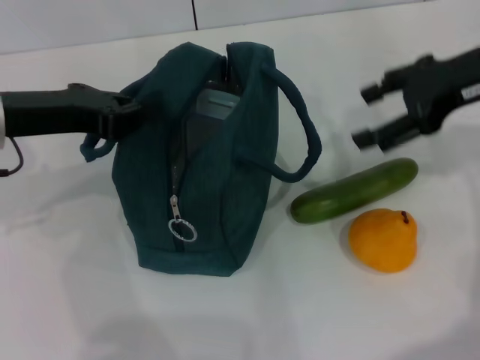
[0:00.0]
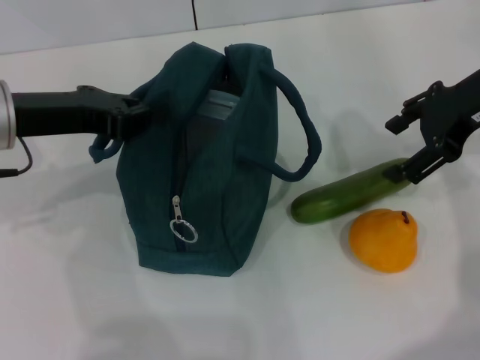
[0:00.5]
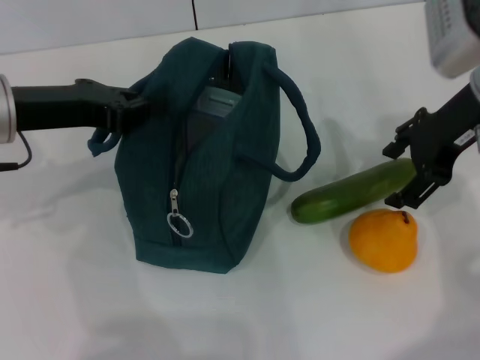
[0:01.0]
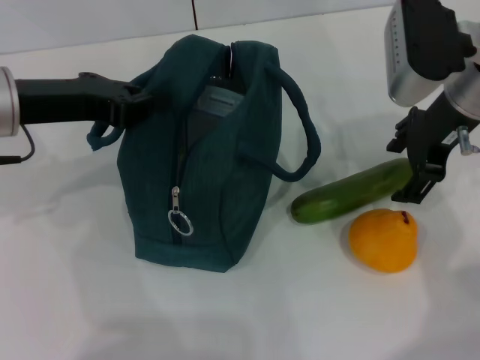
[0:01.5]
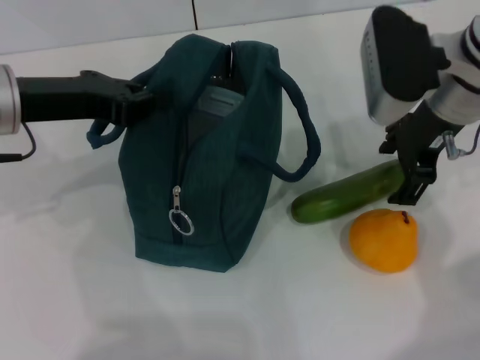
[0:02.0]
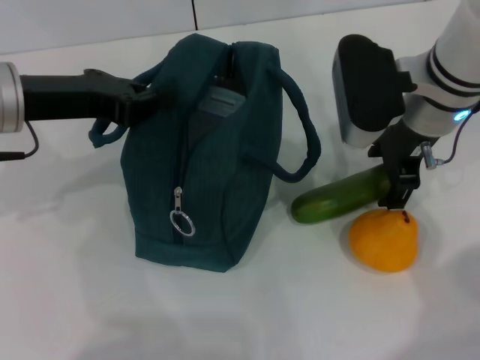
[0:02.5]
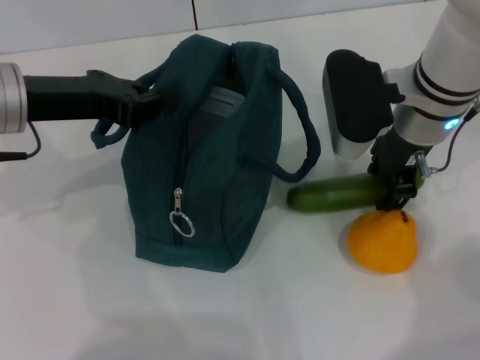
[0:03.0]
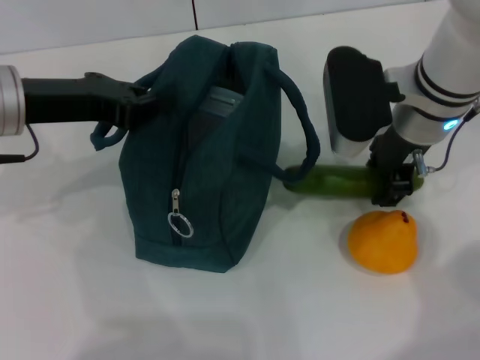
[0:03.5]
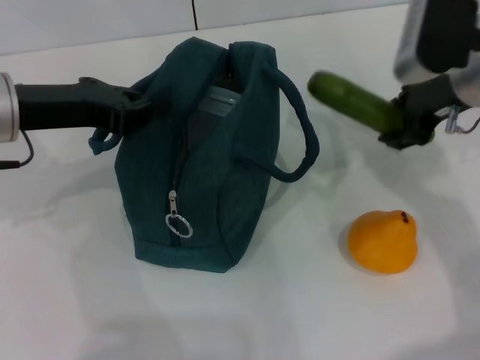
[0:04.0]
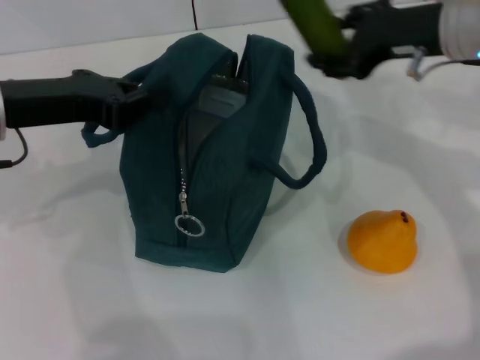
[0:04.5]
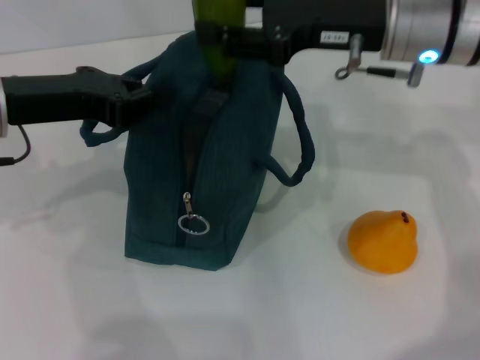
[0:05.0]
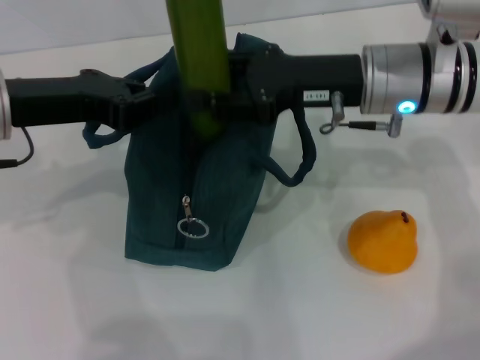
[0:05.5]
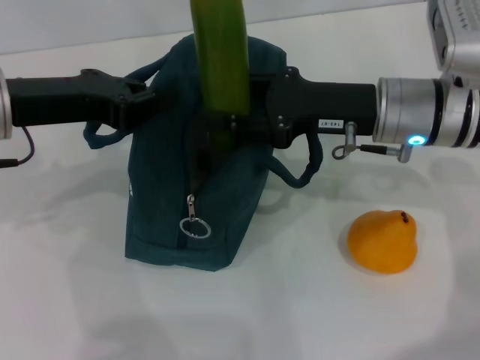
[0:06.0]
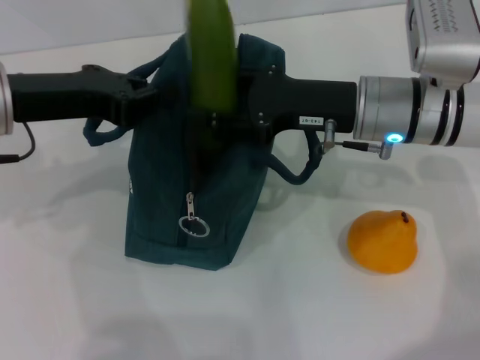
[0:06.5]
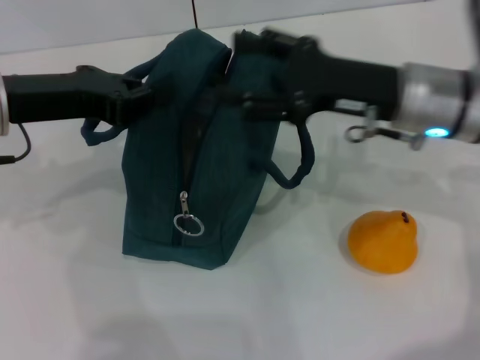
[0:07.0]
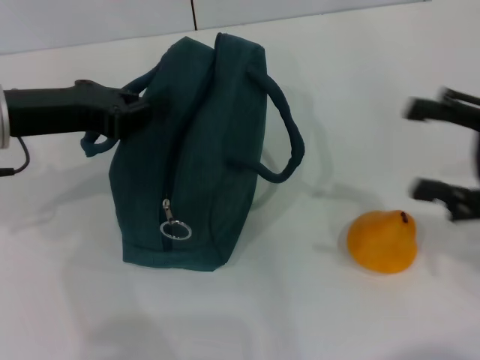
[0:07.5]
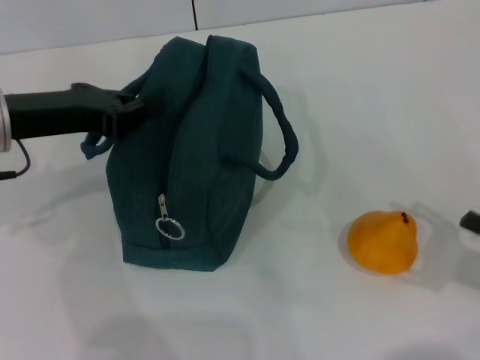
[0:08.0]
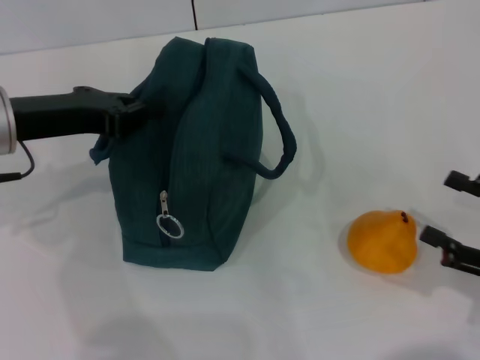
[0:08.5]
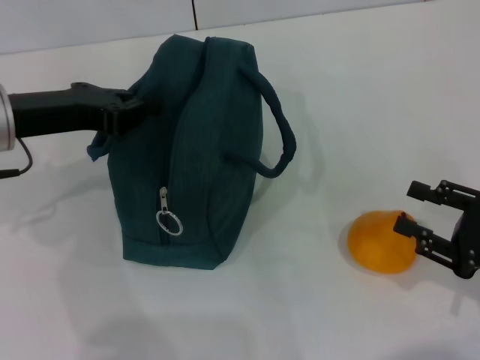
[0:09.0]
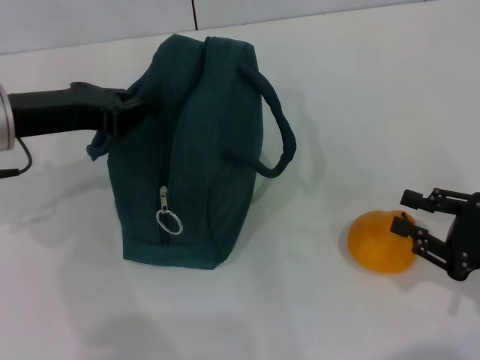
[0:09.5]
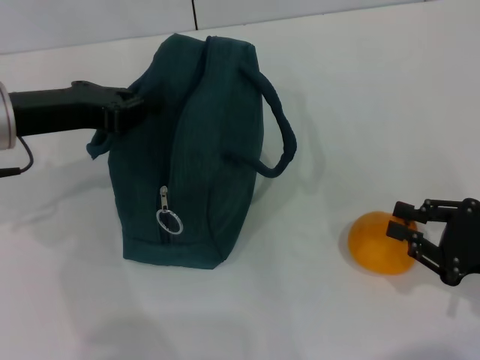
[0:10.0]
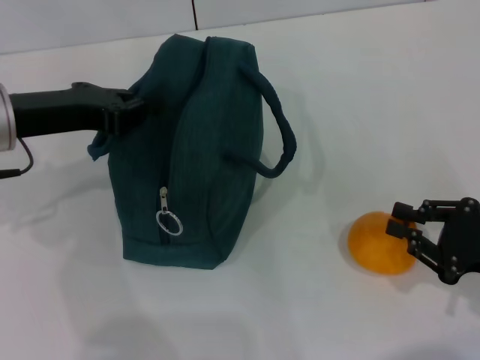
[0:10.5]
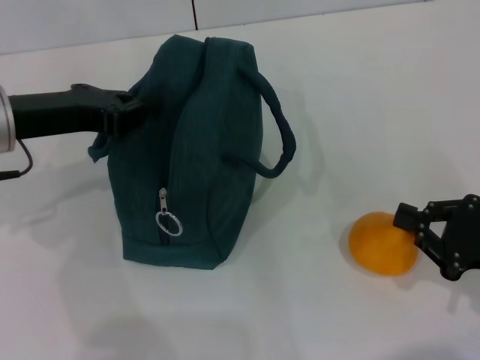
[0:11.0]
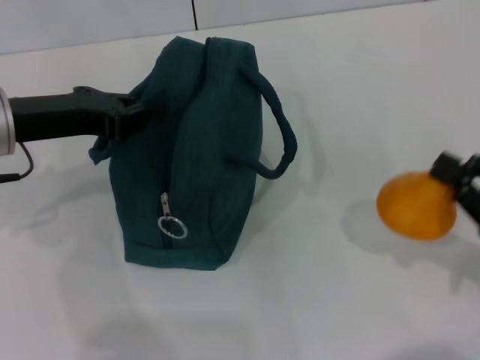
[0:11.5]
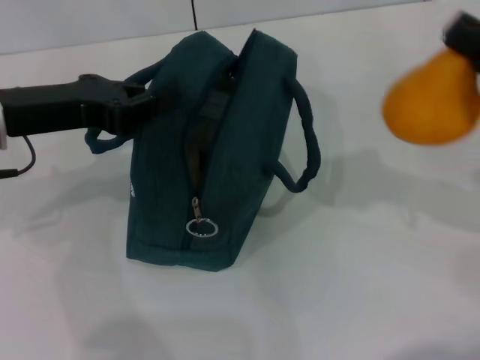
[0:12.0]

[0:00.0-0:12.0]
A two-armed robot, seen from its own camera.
Step, 0:00.0 to 0:03.0: Pick up the cucumber with your right hand.
Step, 0:03.5 to 0:06.5: Put the cucumber into the lunch bag with your right hand.
Step, 0:07.0 to 0:10.5: Grab the pear with your right hand.
0:00.0 to 0:02.0: The right gripper goes approximately 10 cm to the left.
0:02.0 to 0:04.0: The right gripper closes up.
0:04.0 to 0:06.0: The right gripper travels to the left by about 5 cm.
0:06.0 to 0:08.0: The right gripper goes some 25 cm backward and to the right.
0:08.0 to 0:10.0: The right gripper shifts by approximately 5 cm, and closes up.
0:10.0 to 0:12.0: The right gripper heads upward and forward, covering about 15 cm.

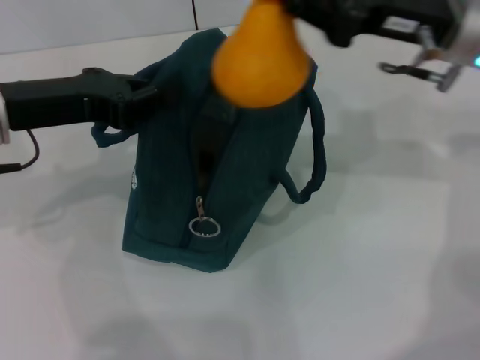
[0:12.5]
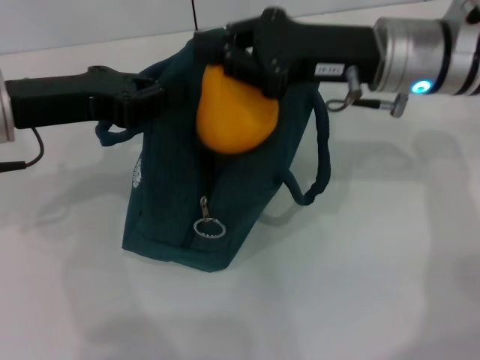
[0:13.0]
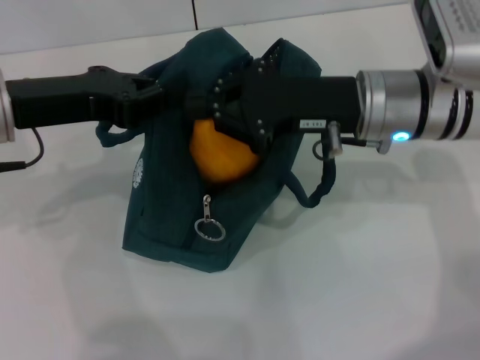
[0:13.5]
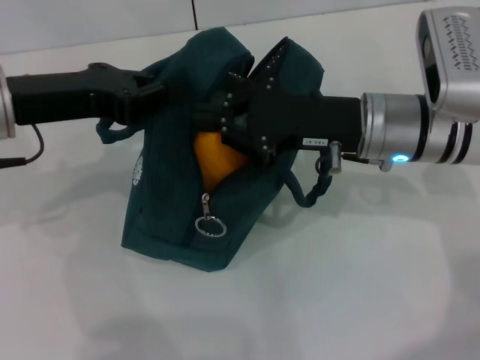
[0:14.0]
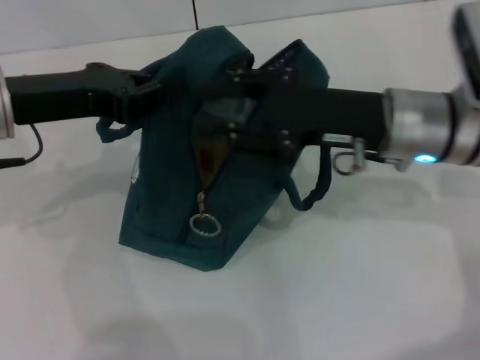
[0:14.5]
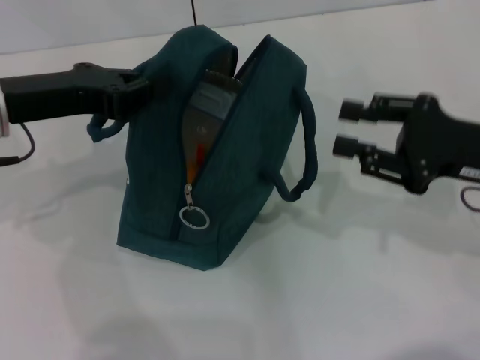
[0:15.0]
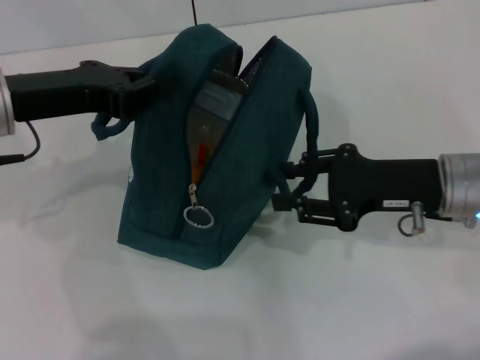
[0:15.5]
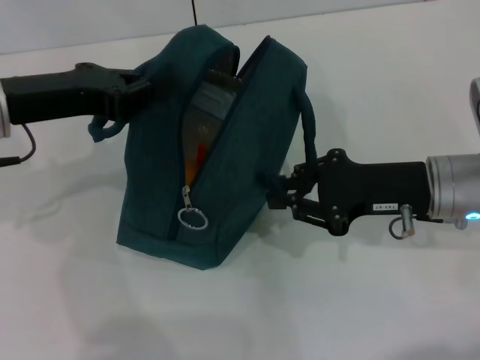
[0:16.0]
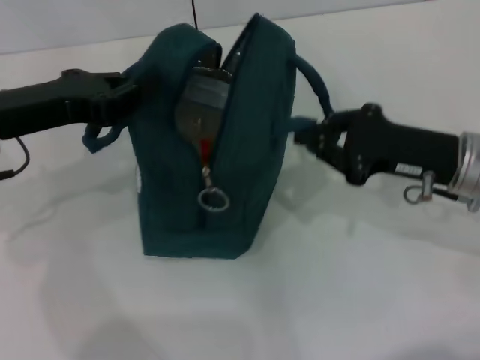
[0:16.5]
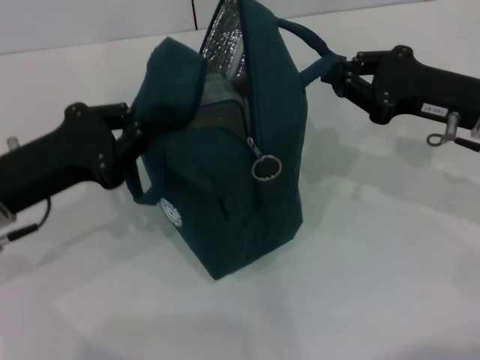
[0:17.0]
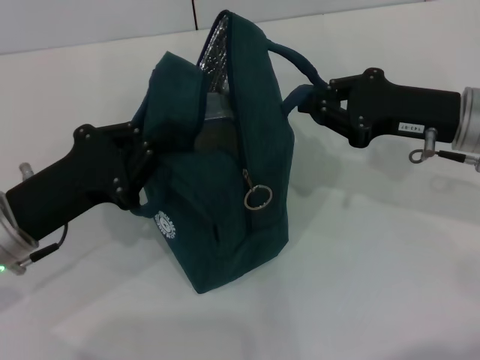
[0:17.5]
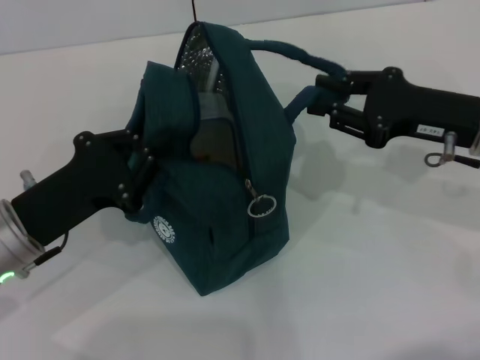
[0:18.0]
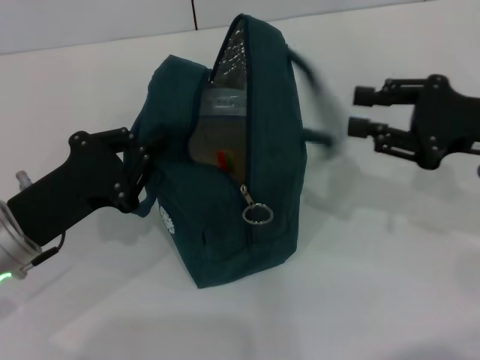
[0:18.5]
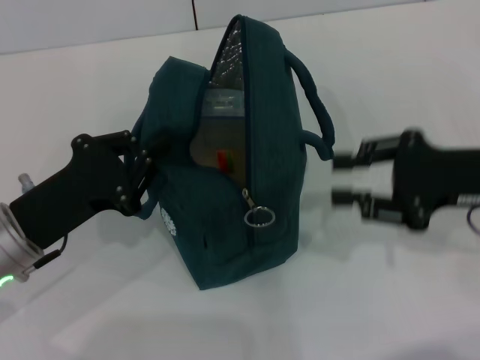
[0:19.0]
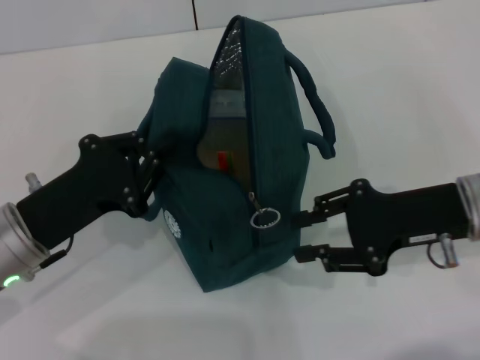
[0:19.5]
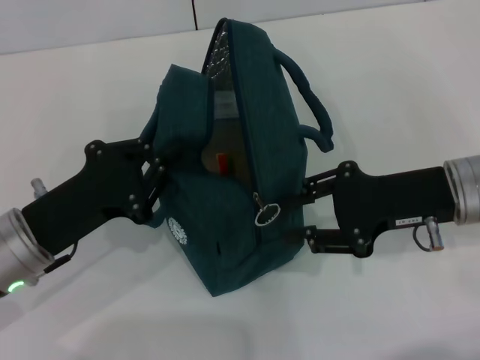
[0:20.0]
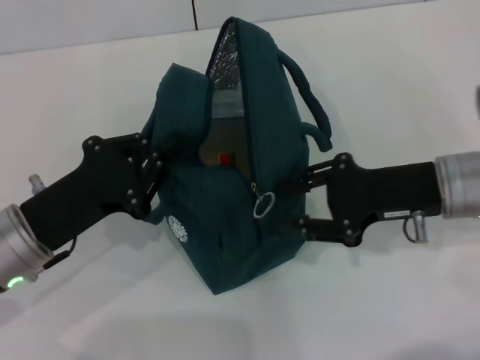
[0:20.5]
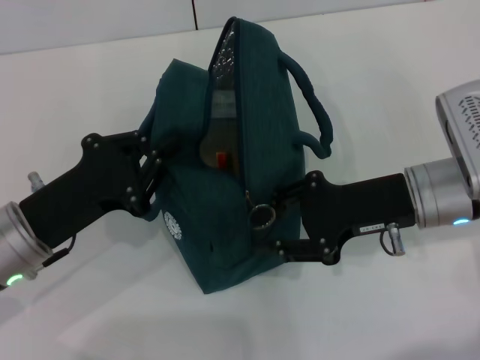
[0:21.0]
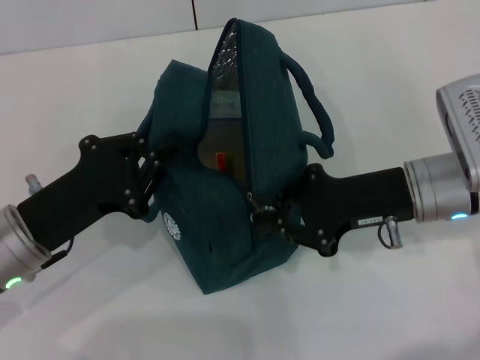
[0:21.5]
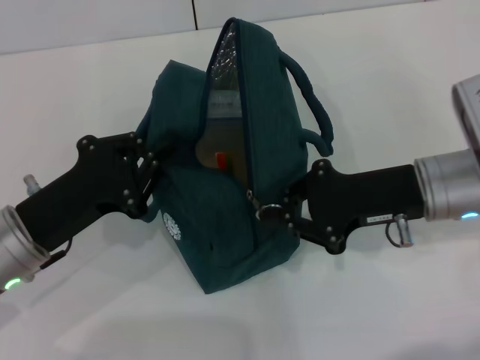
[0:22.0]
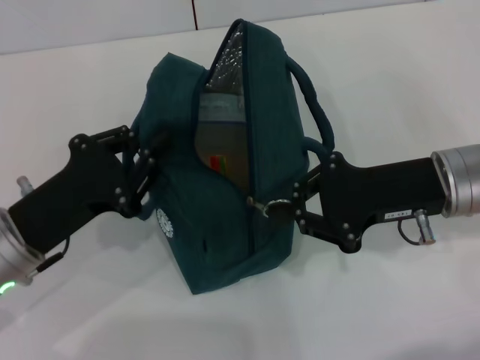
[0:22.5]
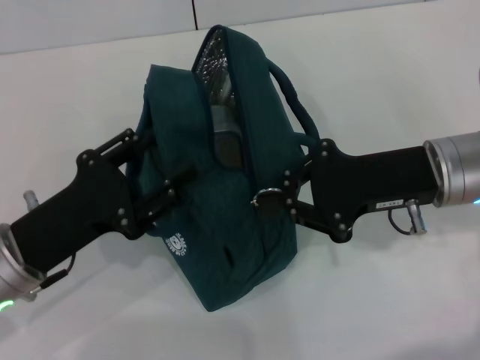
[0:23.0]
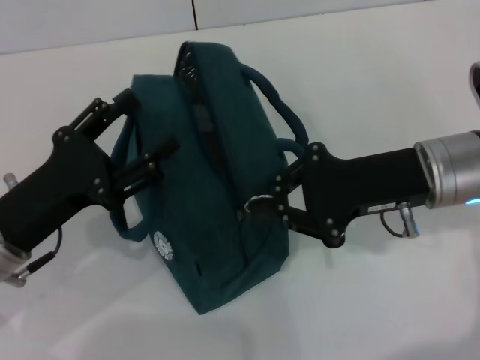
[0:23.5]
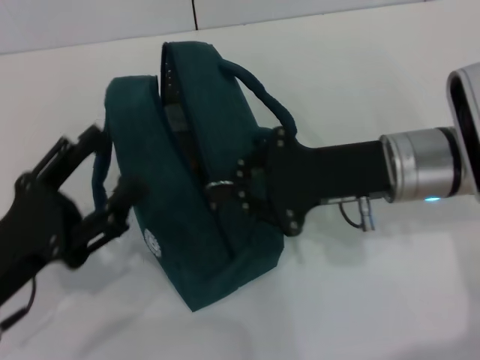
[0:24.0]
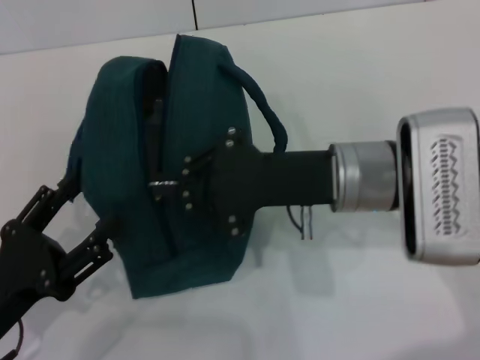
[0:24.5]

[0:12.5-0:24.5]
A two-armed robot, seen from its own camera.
Step, 0:14.5 to 0:18.0: Hold the lunch bag with your right hand.
Step, 0:18.5 to 0:23.5: Hold the lunch bag with your left hand.
0:12.5 to 0:14.5: The right gripper is displaced downward by approximately 5 cm.
0:14.5 to 0:16.5: The right gripper moves to the right, roughly 5 cm.
0:16.5 to 0:18.5: The right gripper is displaced to the right by some 5 cm, and opens its fingers; the left gripper is displaced downward and backward by some 10 cm.
0:18.5 to 0:20.5: The right gripper moves to the left, roughly 5 cm.
0:20.5 to 0:22.5: The right gripper closes its fingers.
0:22.5 to 0:24.5: The left gripper heads backward, covering approximately 10 cm, and opens up. The right gripper goes some 10 cm to the left.

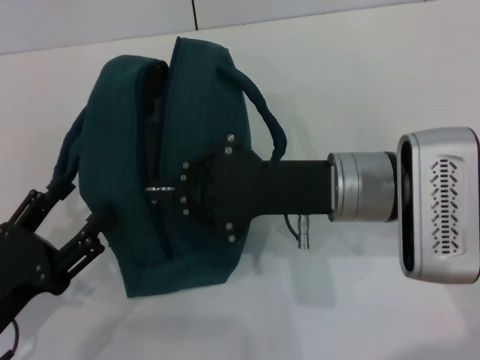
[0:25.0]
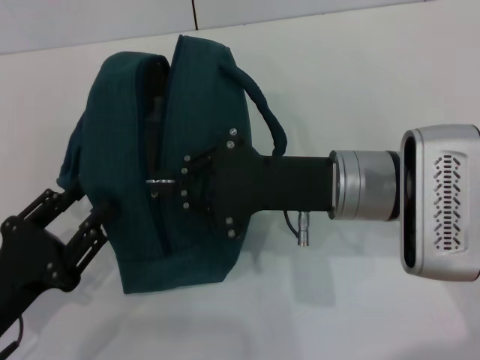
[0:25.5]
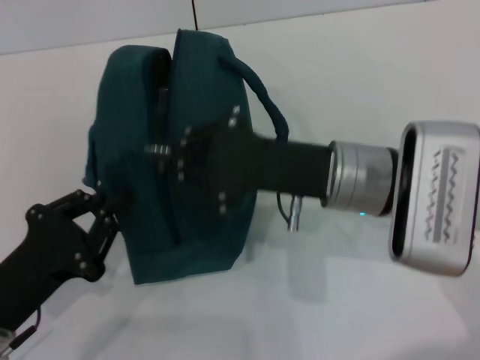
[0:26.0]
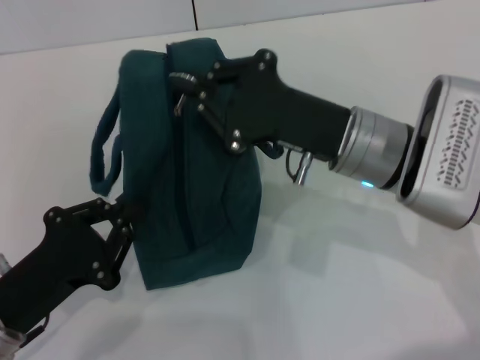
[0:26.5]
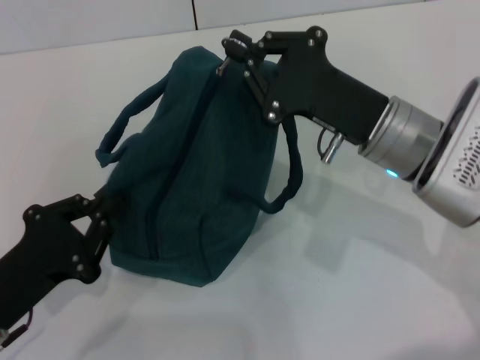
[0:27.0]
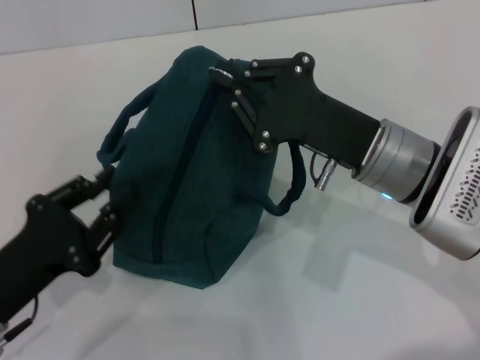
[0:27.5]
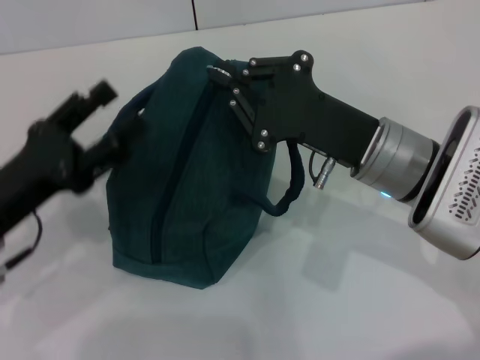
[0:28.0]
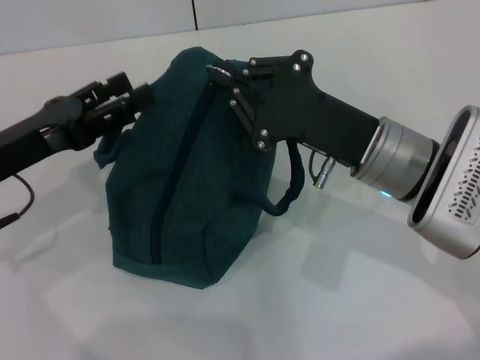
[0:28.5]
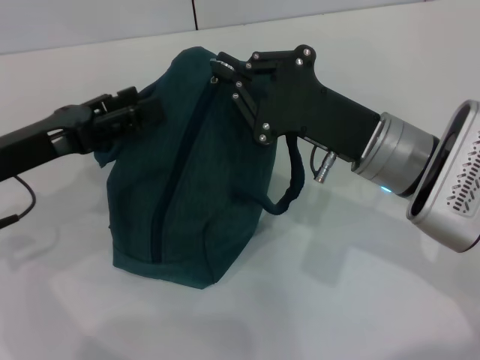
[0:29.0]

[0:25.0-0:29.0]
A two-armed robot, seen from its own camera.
0:25.0 to 0:27.0: The left gripper closes up.
0:27.0 to 0:29.0: The left gripper is displaced forward and upward by about 15 cm, and opens its fingers.
